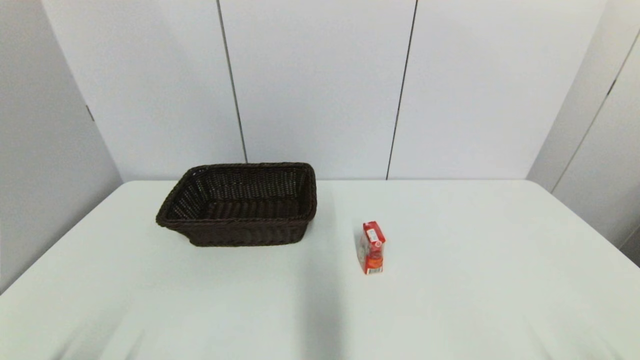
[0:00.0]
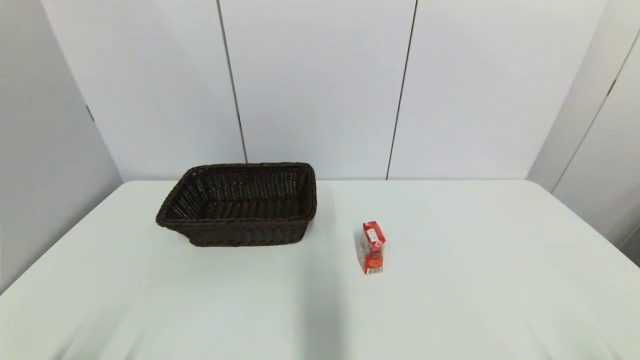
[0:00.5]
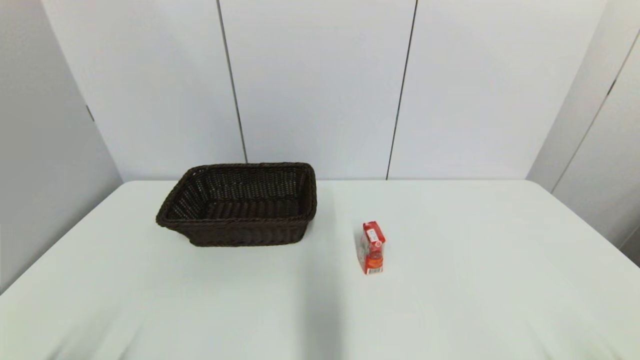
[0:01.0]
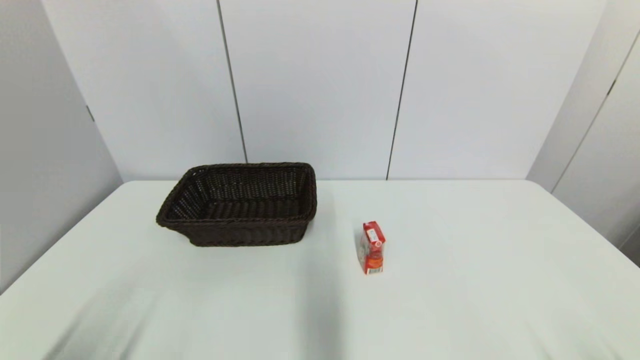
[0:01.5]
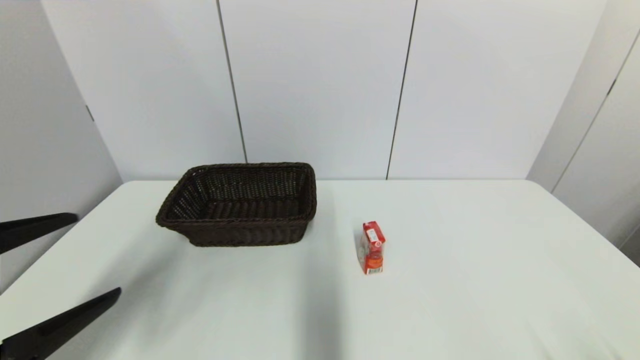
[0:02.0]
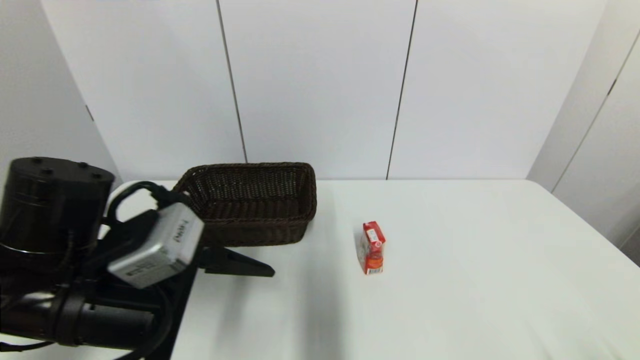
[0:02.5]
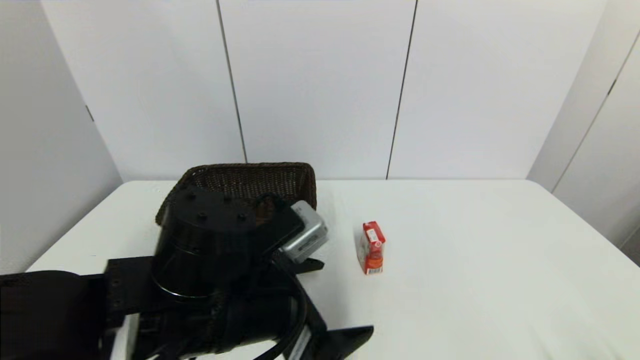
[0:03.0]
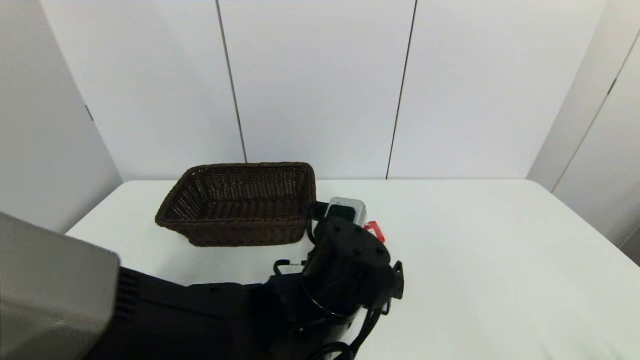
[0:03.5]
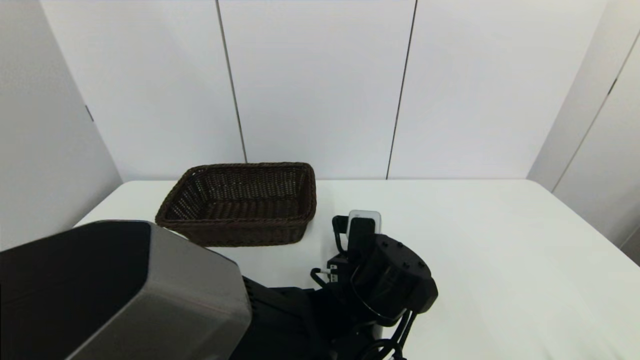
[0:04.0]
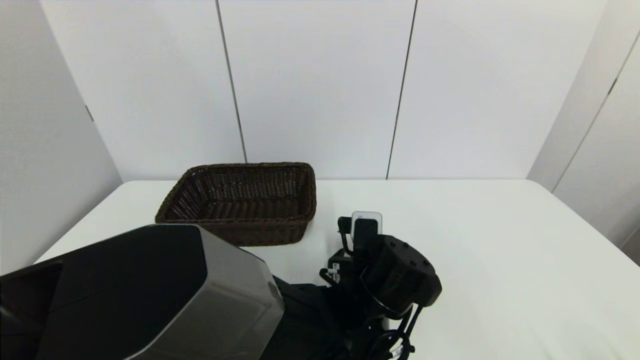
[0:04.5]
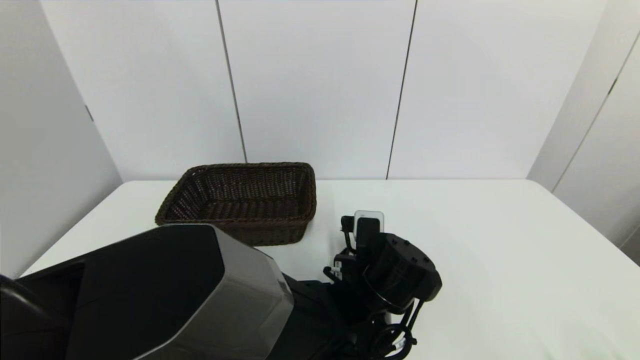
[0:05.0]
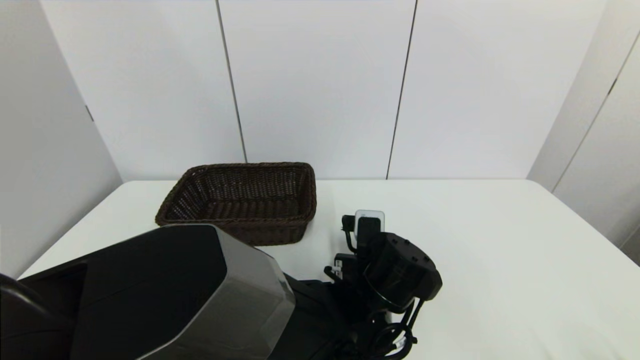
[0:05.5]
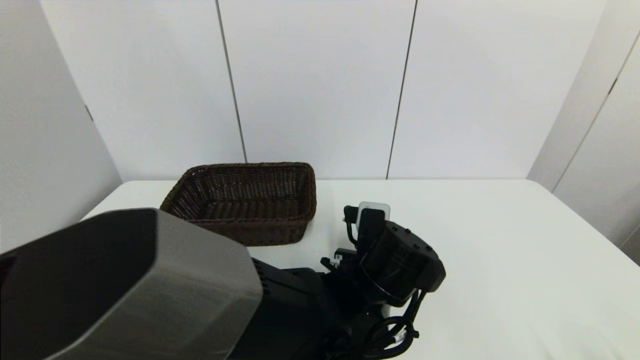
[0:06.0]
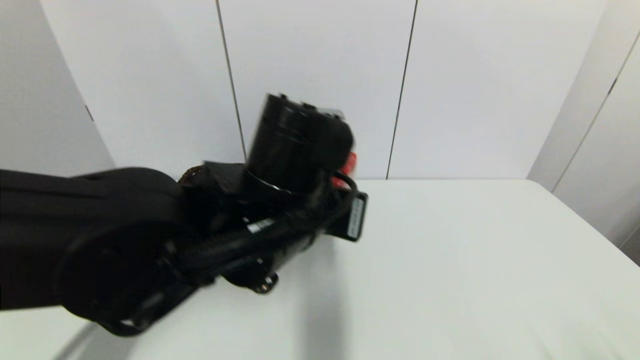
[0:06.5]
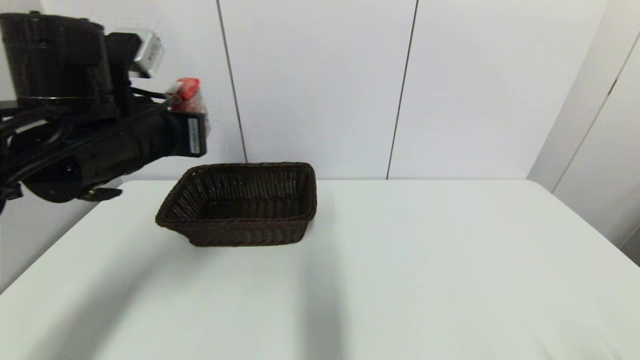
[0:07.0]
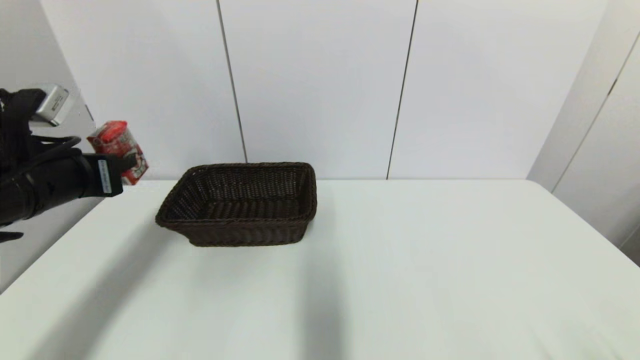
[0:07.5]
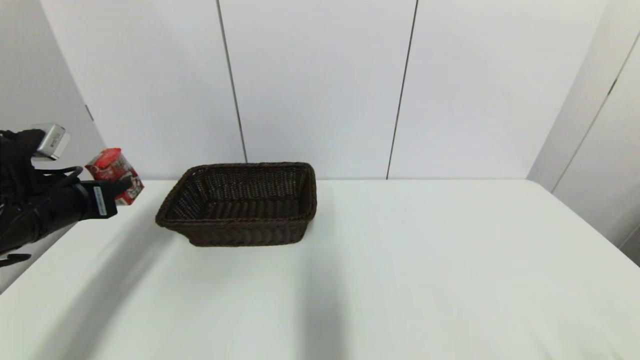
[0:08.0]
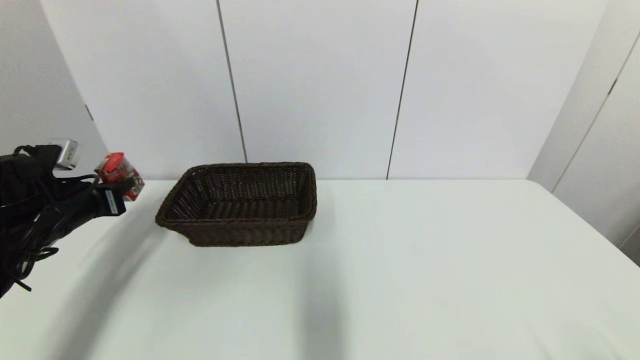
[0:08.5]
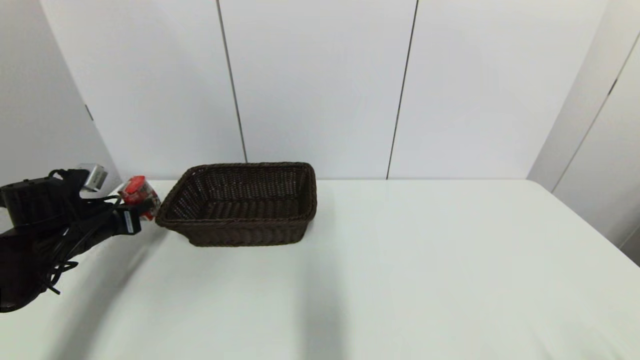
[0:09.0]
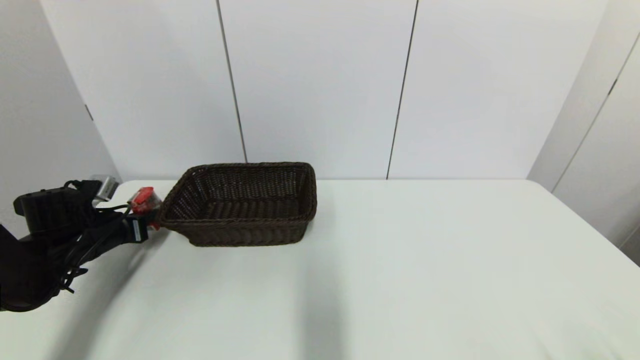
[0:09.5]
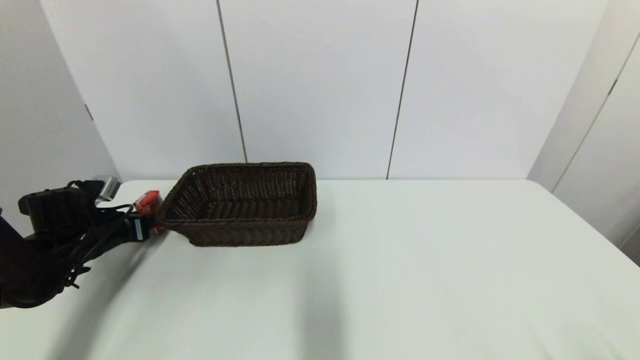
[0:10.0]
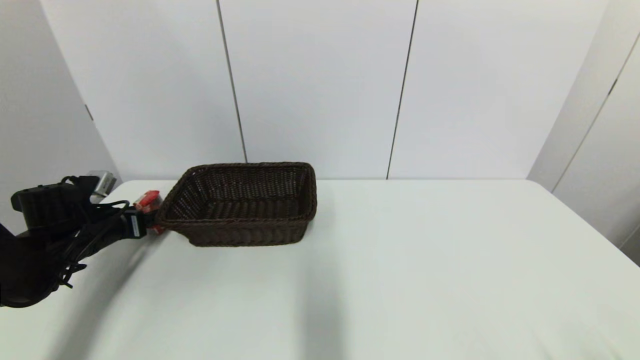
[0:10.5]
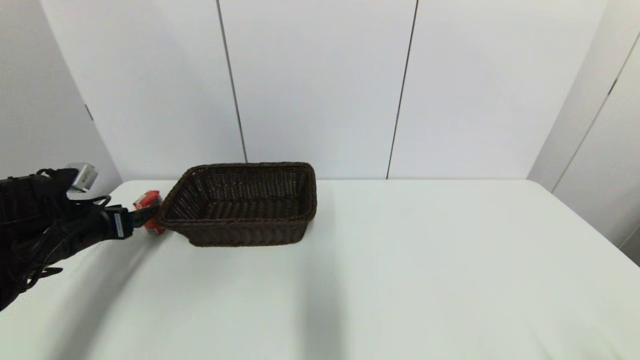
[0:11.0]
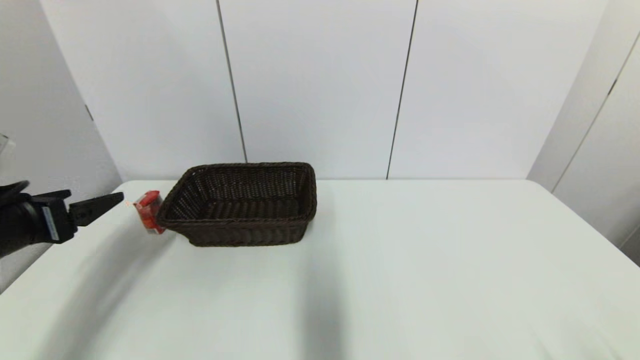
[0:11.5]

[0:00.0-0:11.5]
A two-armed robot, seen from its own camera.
Step, 0:02.0 to 0:05.5: Grasp the wangzai milk with left gripper.
Step, 0:06.0 to 0:09.5: Place the wangzai milk on the table with left gripper.
0:00.0 to 0:02.0: The left gripper travels upward and forward by approximately 20 cm.
0:02.0 to 0:04.0: The left gripper heads to the right, covering approximately 35 cm.
0:04.0 to 0:06.0: The left gripper closes up.
0:06.0 to 0:07.5: The left gripper goes approximately 35 cm to the left.
0:07.5 to 0:09.5: The left gripper shifts roughly 20 cm downward, forward and to the left.
0:09.5 to 0:11.5: The left gripper heads backward and upward, covering roughly 20 cm, and opens its fingers.

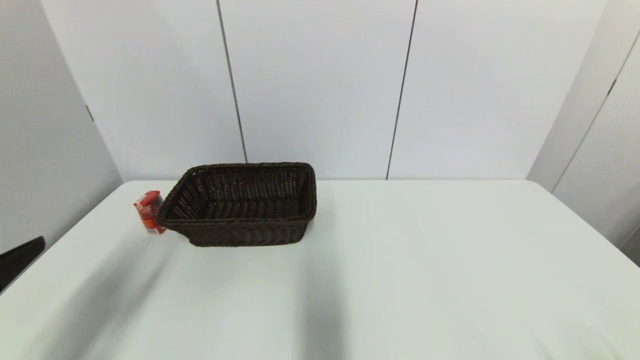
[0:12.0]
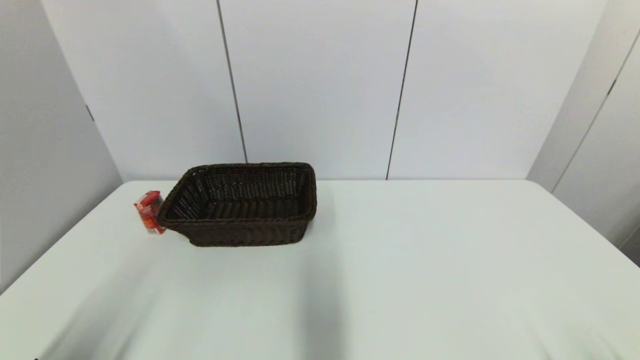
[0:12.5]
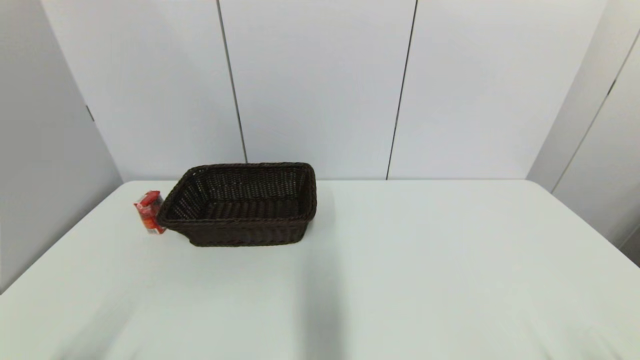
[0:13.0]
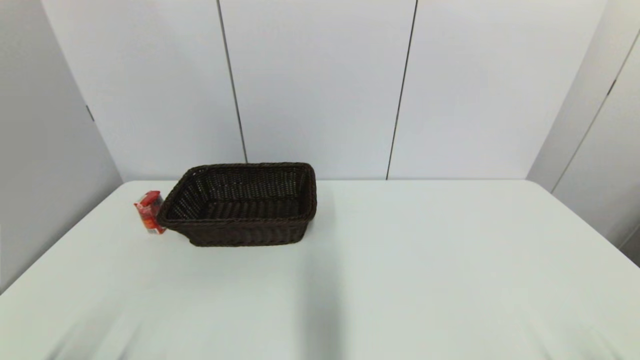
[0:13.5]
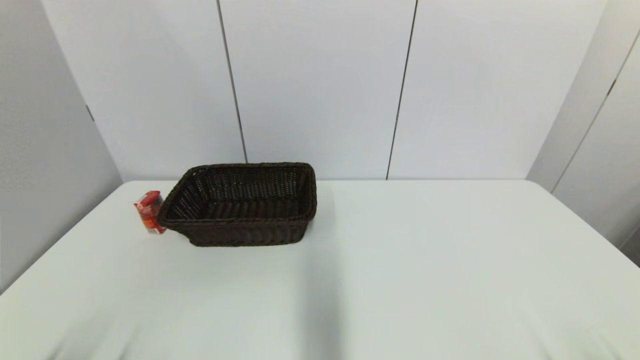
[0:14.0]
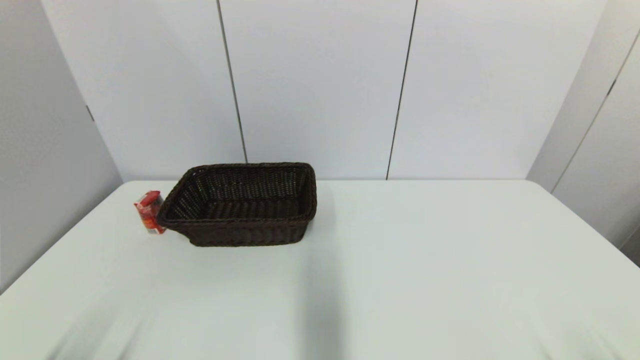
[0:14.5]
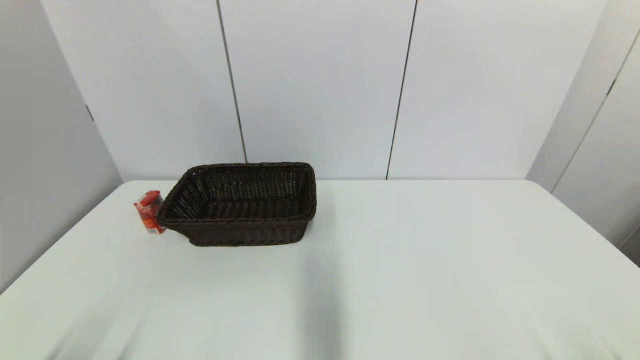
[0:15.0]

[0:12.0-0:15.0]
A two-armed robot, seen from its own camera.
0:12.0 to 0:13.5: The left gripper travels downward and backward by some 15 cm.
0:13.5 to 0:15.0: Both grippers stay put.
